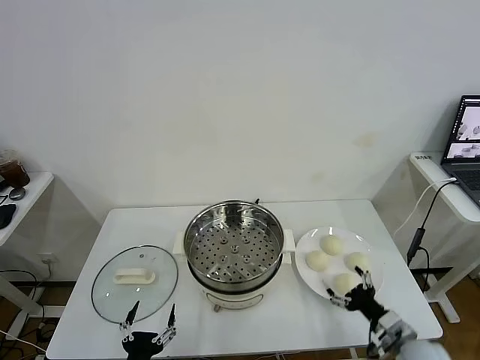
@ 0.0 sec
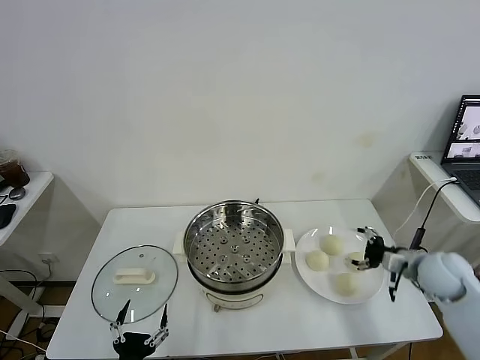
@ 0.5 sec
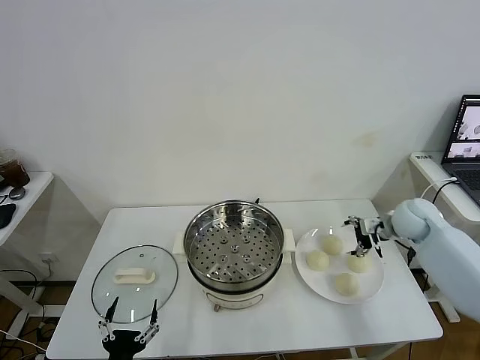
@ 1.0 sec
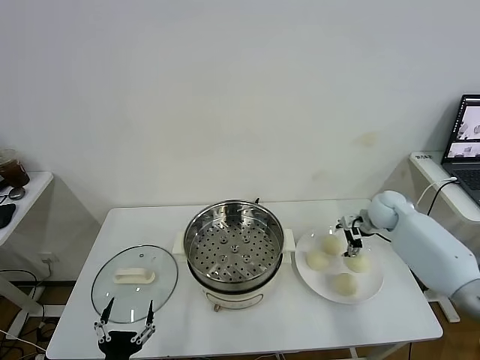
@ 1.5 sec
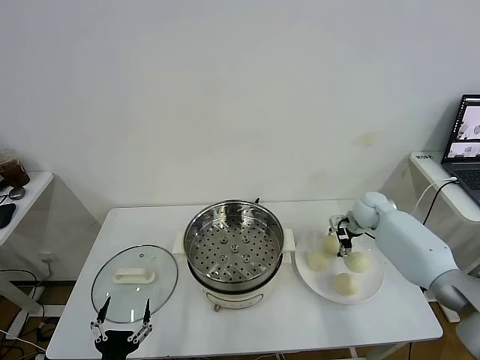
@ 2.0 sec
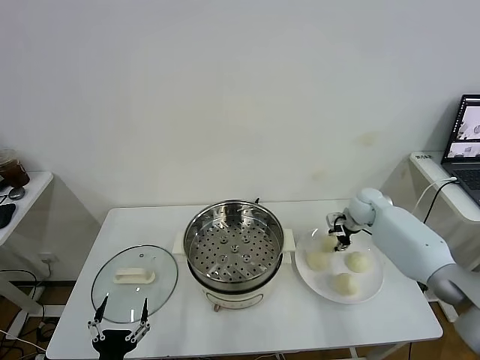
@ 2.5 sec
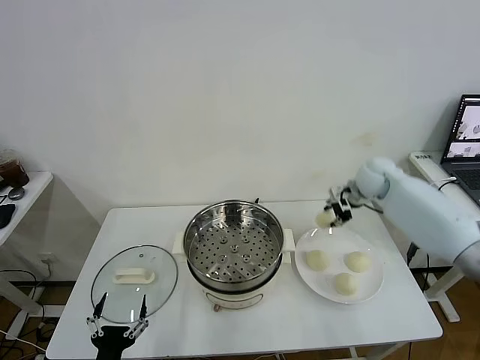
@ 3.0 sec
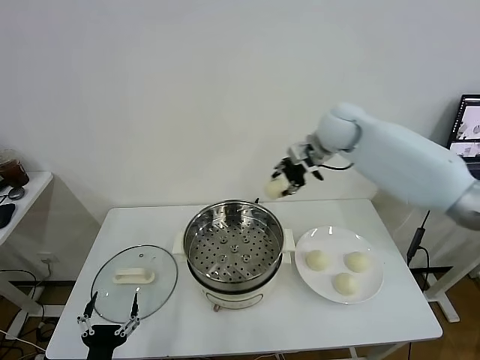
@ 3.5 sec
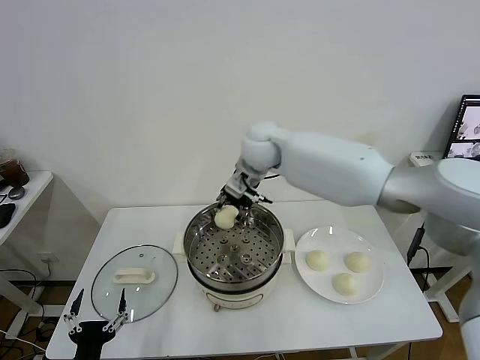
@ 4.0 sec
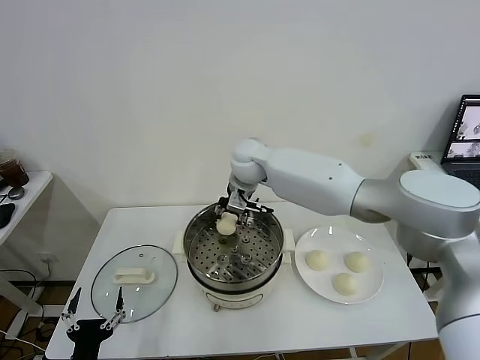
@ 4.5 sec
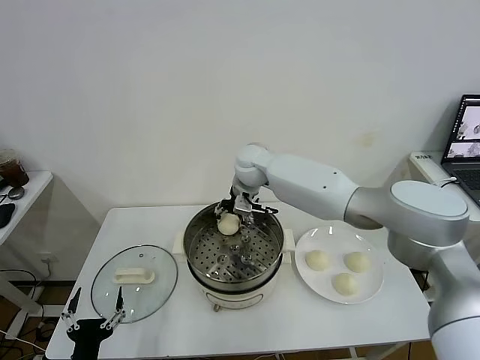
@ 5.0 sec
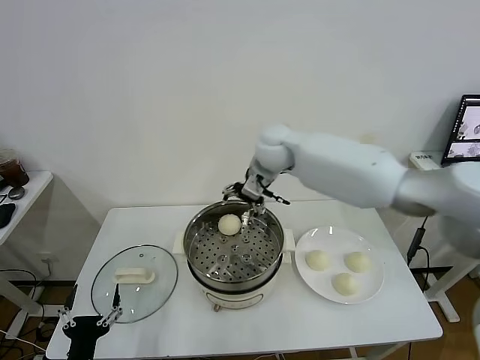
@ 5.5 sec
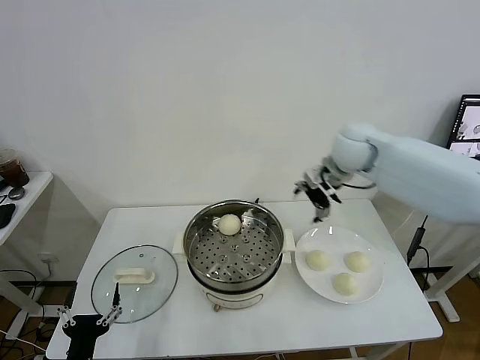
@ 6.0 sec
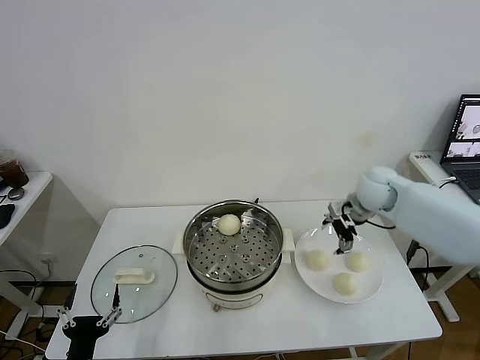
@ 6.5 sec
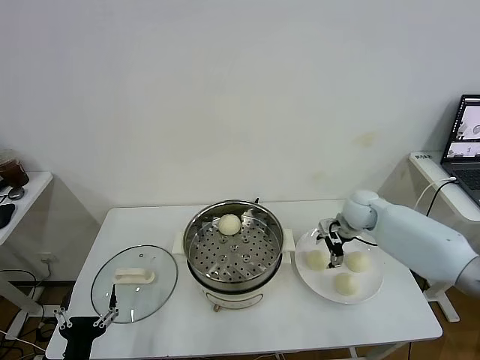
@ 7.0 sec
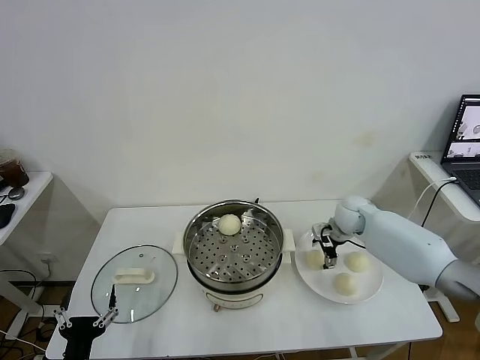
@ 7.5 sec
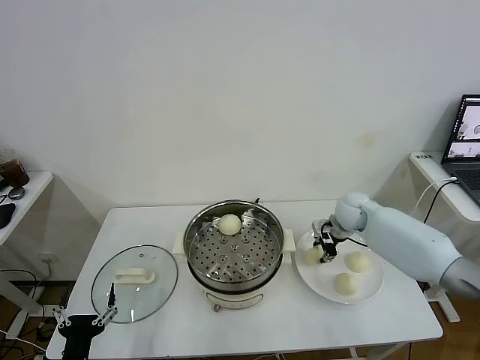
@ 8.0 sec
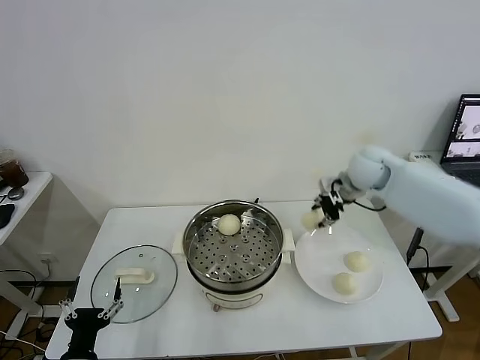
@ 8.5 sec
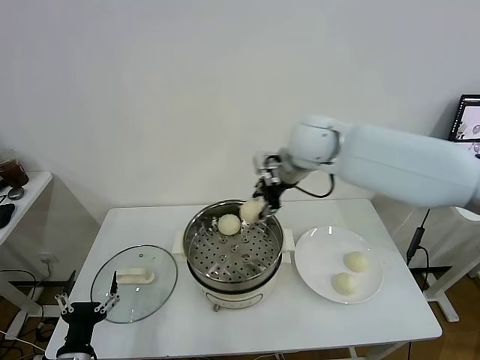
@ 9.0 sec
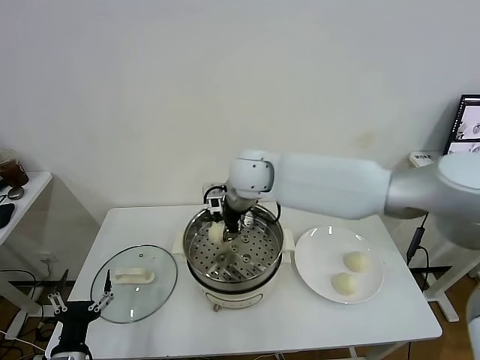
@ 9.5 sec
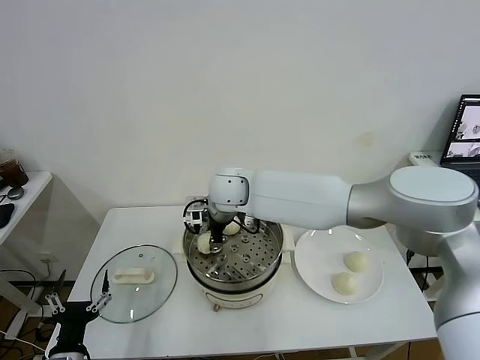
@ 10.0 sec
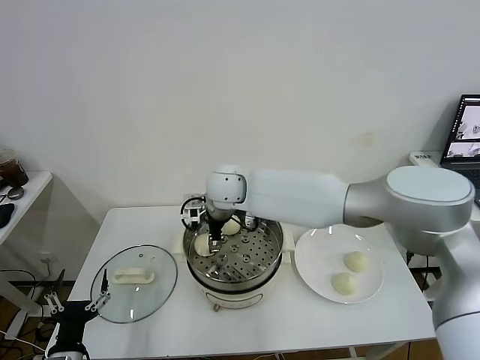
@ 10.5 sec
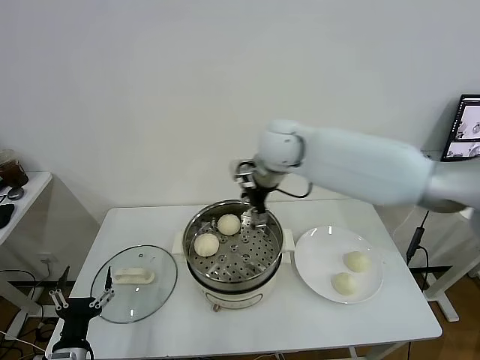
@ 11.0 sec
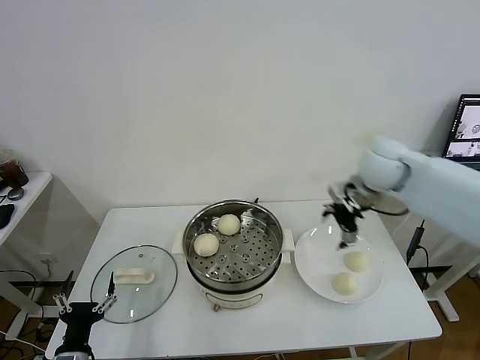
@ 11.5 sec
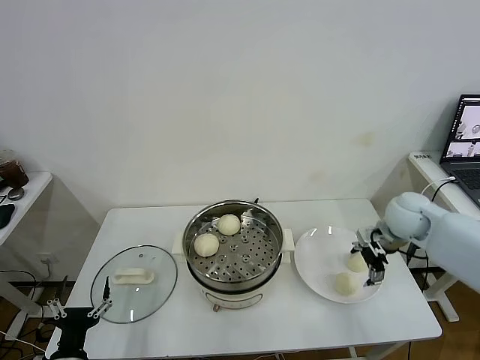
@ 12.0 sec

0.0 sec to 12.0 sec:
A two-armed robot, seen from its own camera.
Task of the whole recording: take steamed baozi put them in steamer.
Step, 0.0 sec to 2.5 sec: Grasp the baozi in the plate with right gripper.
Step, 3.0 sec to 5.0 sec: Place the baozi on the steamer with right gripper.
Step, 5.5 sec to 7.5 sec: Grasp the baozi in the plate with right gripper.
Step, 8.0 sec to 10.5 sec: Place the baozi on the steamer with right gripper.
2.0 sec to 4.0 sec: The right gripper shifts roughly 35 cm to the left and upward, and closes its fingers.
4.0 sec to 6.0 sec: The right gripper heads to the right, covering approximately 20 cm, and opens its fingers.
6.0 sec to 8.0 sec: The right gripper heads downward, covering roughly 20 cm, and closes up.
8.0 sec to 10.0 sec: The right gripper heads to the left, covering approximately 30 cm.
10.0 sec to 12.0 sec: The right gripper shifts about 40 cm to the right, and opens.

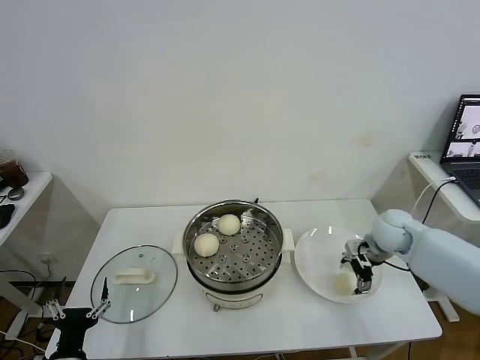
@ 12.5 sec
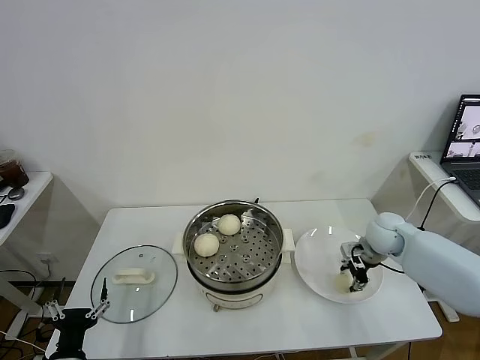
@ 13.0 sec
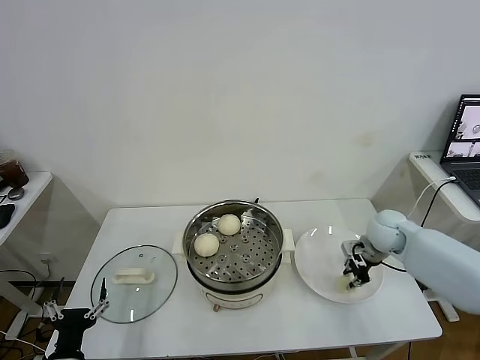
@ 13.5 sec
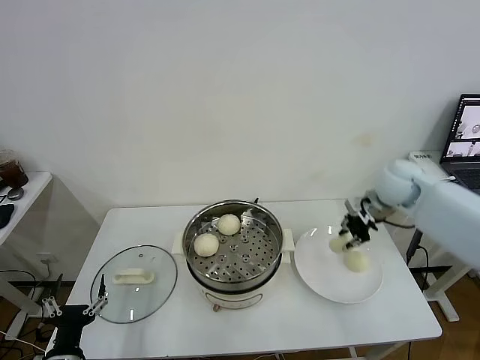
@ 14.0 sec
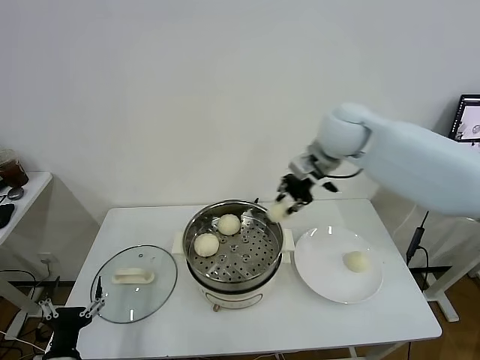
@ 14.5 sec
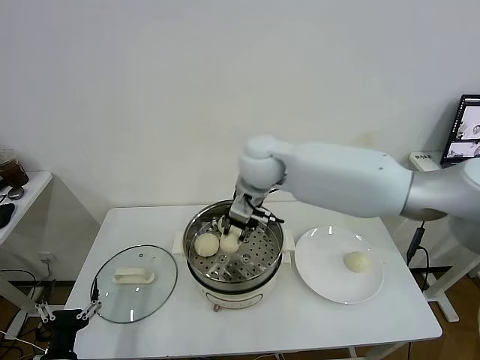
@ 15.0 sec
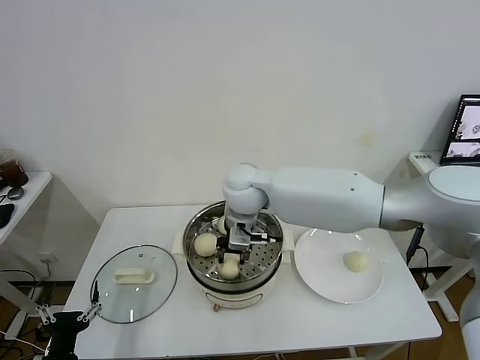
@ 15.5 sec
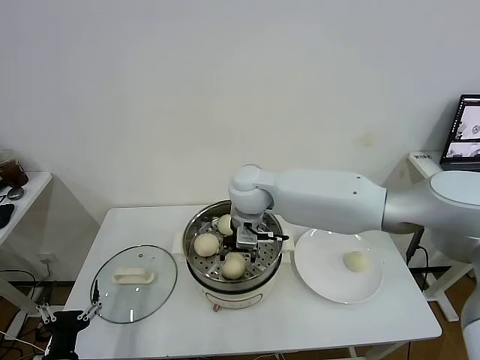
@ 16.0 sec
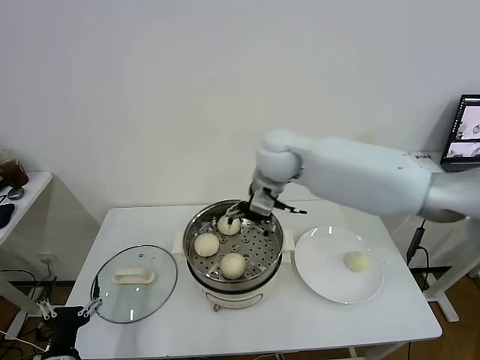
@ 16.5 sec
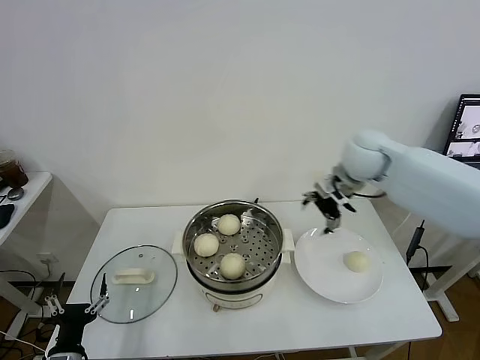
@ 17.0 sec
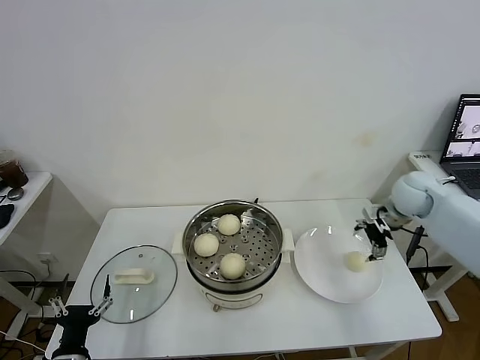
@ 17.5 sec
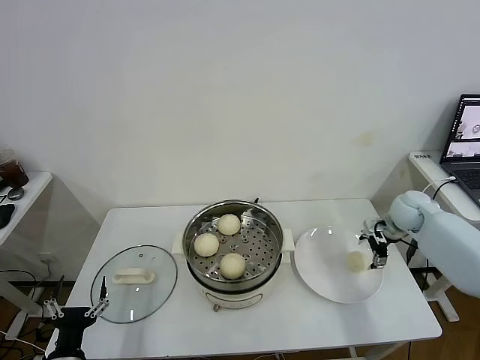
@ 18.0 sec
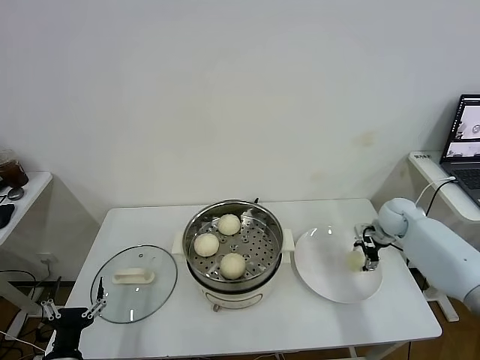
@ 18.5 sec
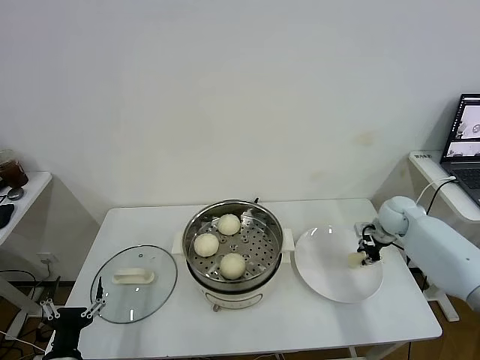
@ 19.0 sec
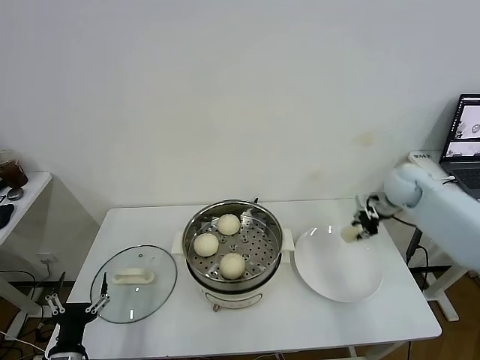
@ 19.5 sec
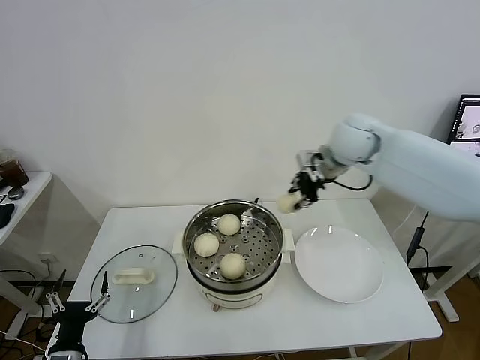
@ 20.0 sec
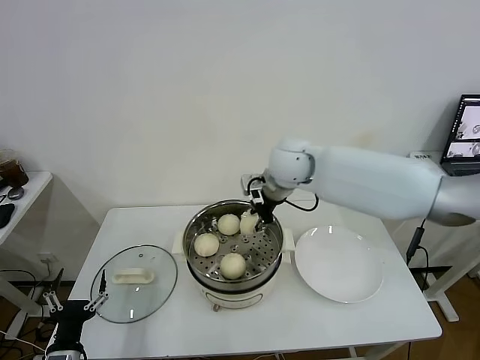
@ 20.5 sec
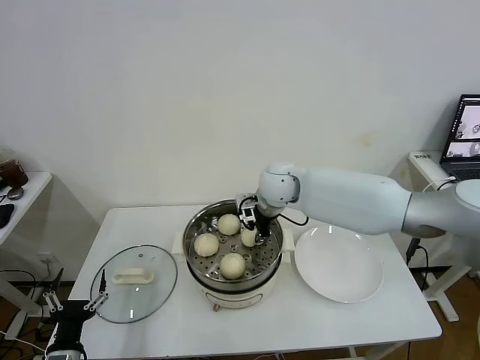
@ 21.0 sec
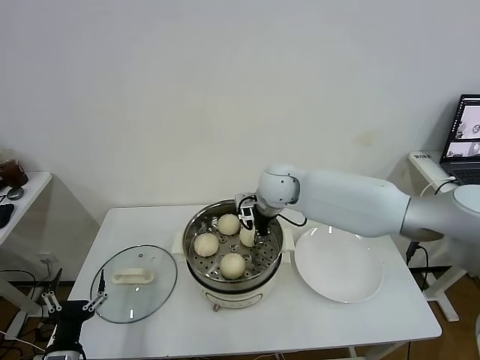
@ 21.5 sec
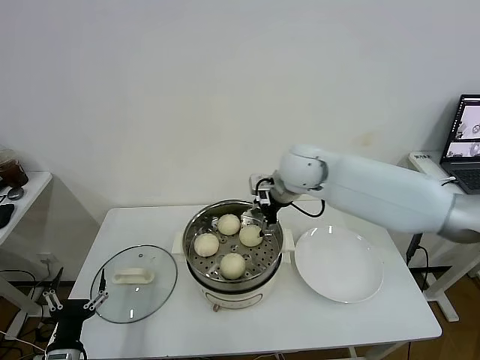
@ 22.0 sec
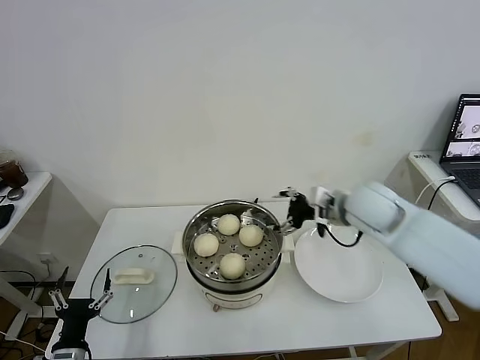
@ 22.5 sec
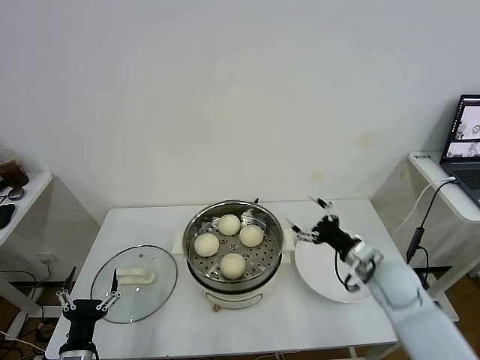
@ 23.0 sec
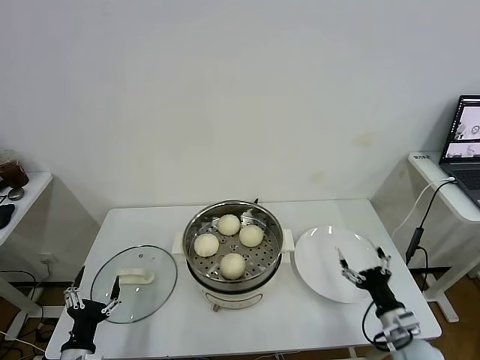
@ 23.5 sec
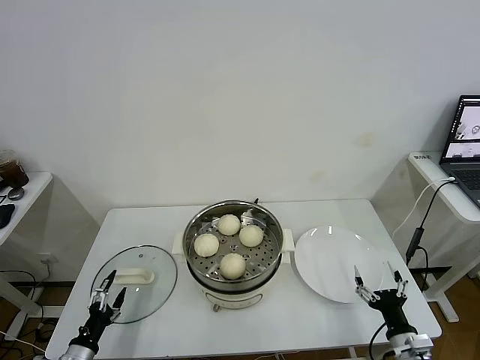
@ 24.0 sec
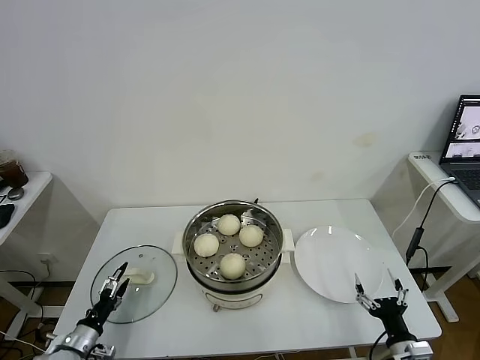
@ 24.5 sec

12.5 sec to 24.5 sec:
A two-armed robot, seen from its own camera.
Task of the whole recording: take steamed baozi put them in steamer.
Step, 13.5 sec to 16.0 sec: Place the baozi on the steamer with right gripper.
Step, 16.5 sec to 18.5 sec: Grasp the baozi in the plate with right gripper.
Step, 19.0 sec to 22.0 sec: Place the baozi on the steamer with right gripper.
12.5 sec to 14.5 sec: The right gripper shifts about 30 cm upward and to the left, and closes up.
14.5 sec to 16.5 sec: The right gripper is displaced to the left by some 10 cm, and opens its fingers.
16.5 sec to 18.5 sec: The right gripper moves to the right and downward, about 40 cm.
18.5 sec to 20.5 sec: The right gripper is displaced to the left and upward by roughly 35 cm, and closes up.
20.5 sec to 22.5 sec: The right gripper goes approximately 15 cm to the right and backward, and opens up.
22.5 sec to 24.5 sec: The right gripper shifts roughly 40 cm downward, backward and to the right. The left gripper travels downward, to the left and forward by roughly 10 cm.

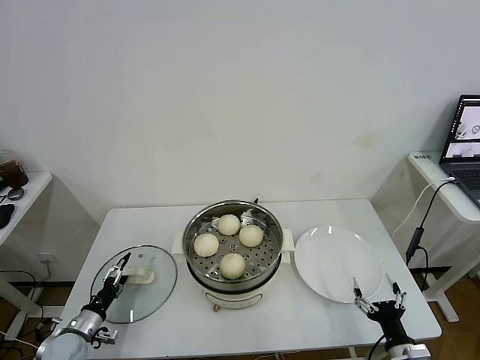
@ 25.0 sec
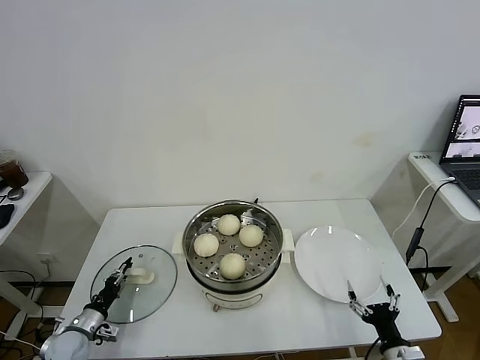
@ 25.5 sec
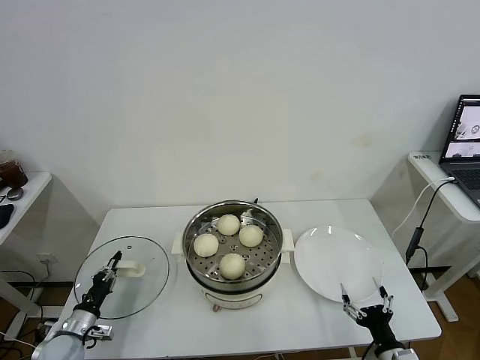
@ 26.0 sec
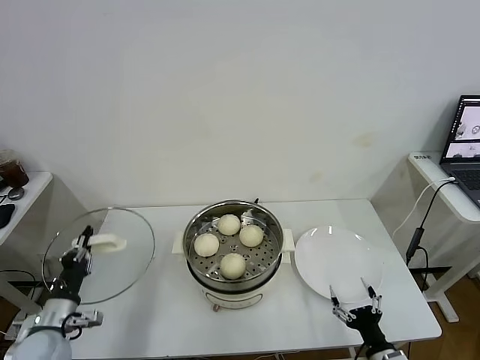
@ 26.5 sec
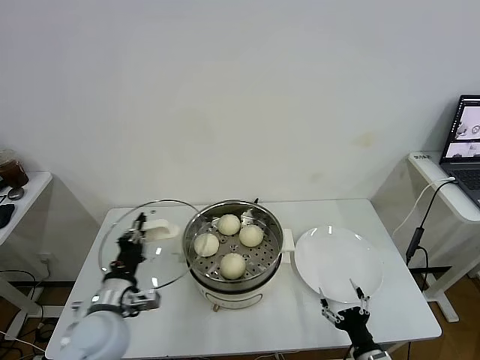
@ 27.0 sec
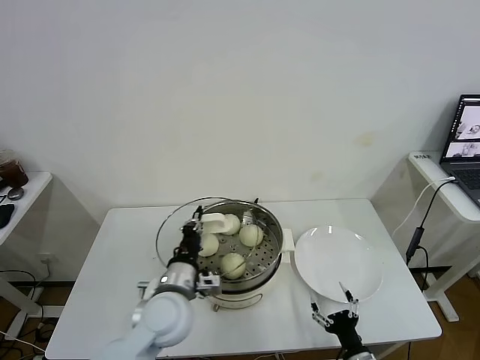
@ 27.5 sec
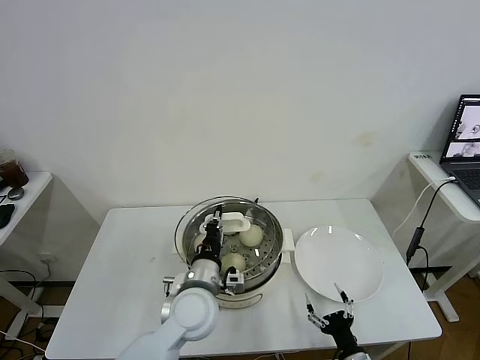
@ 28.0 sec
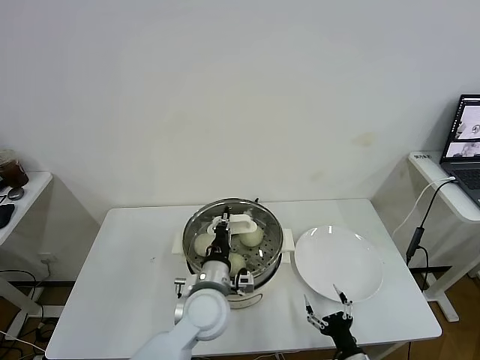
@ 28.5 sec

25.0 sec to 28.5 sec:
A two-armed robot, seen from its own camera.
Task of the whole recording: take steamed baozi put them in steamer.
25.0 sec to 27.0 sec: The right gripper shifts roughly 5 cm to the left; the left gripper goes roughly 25 cm upward and to the right, and closes.
27.0 sec to 28.5 sec: The left gripper is displaced to the right by about 20 cm.
